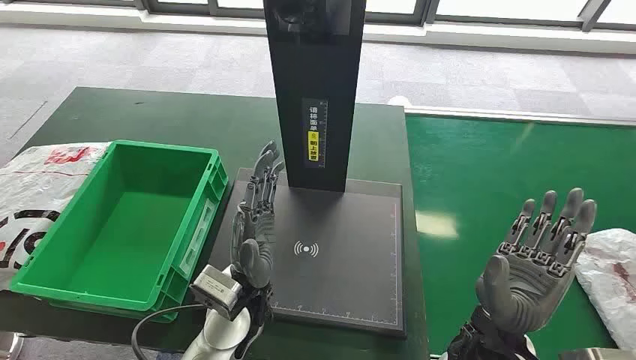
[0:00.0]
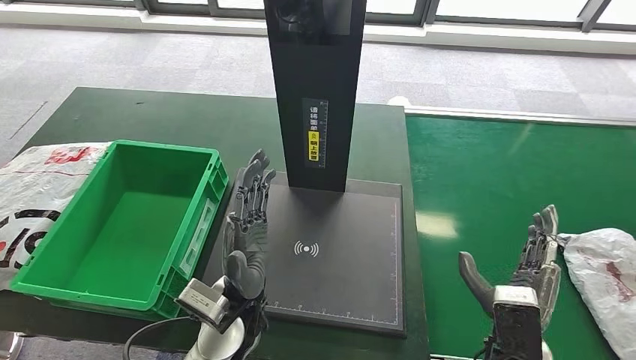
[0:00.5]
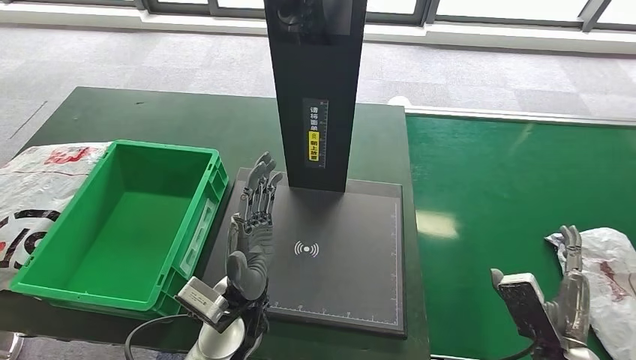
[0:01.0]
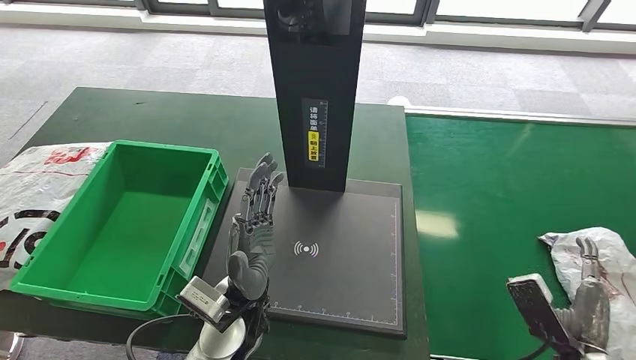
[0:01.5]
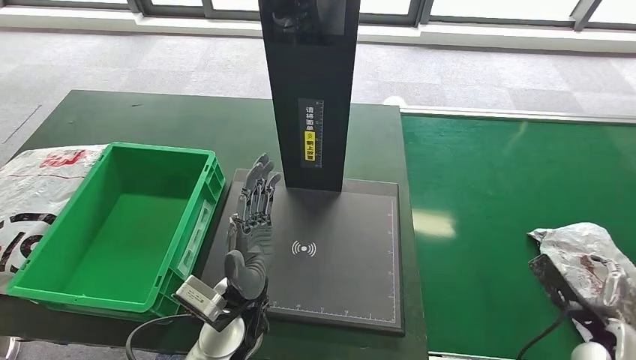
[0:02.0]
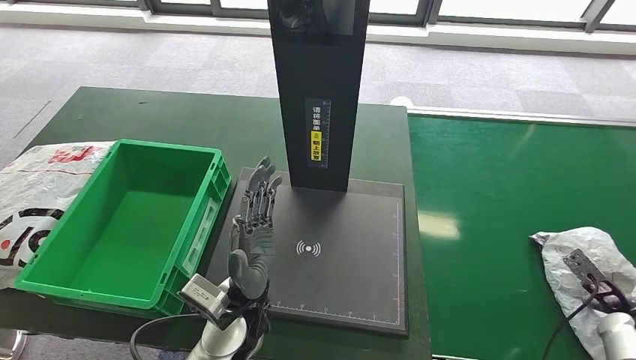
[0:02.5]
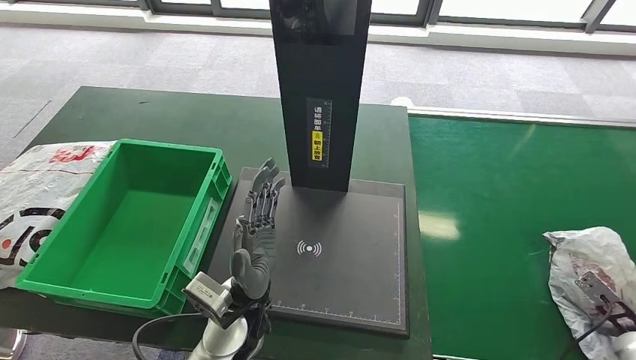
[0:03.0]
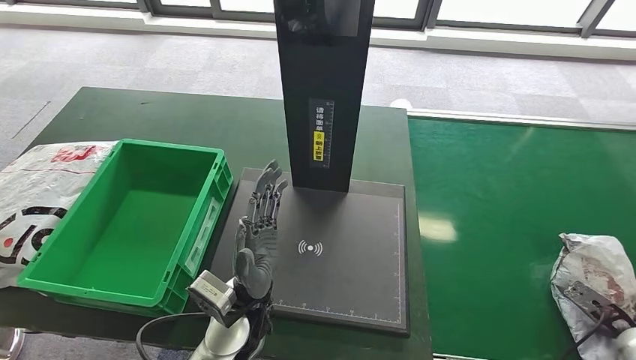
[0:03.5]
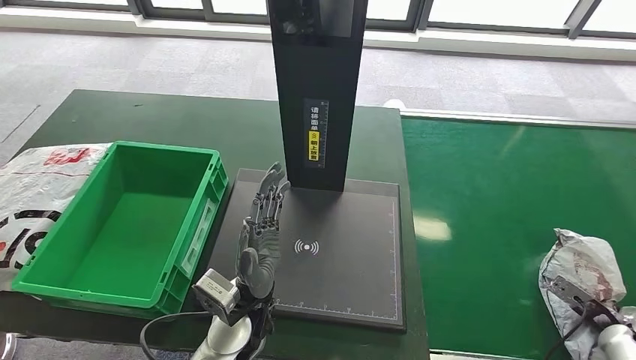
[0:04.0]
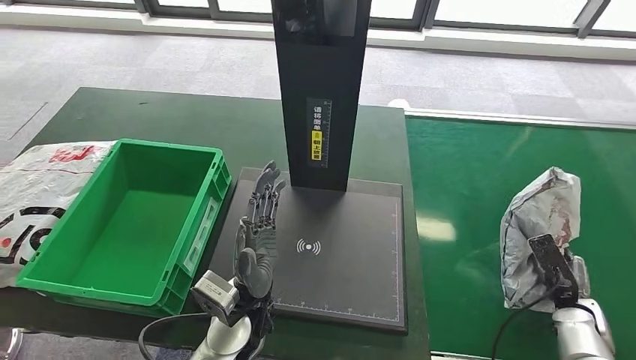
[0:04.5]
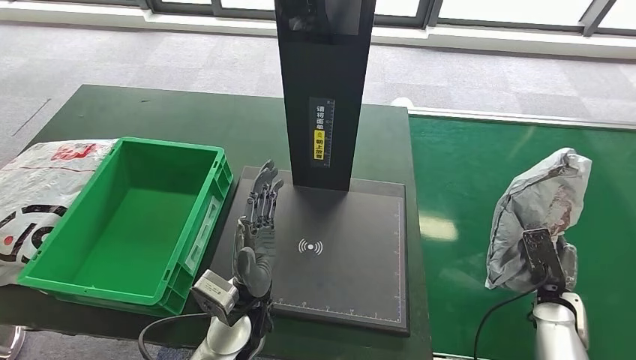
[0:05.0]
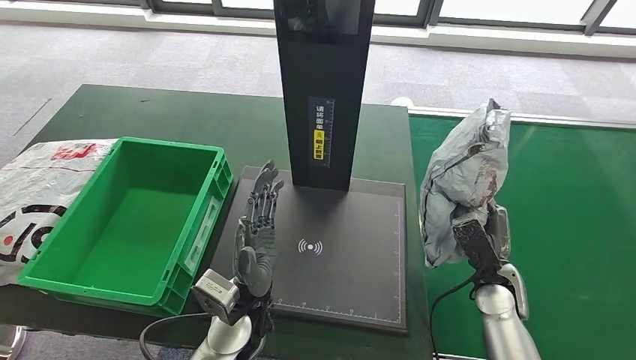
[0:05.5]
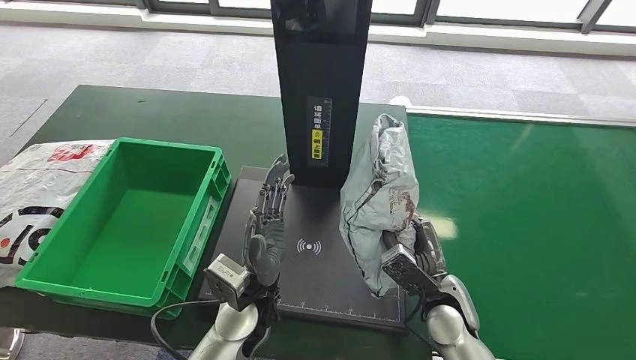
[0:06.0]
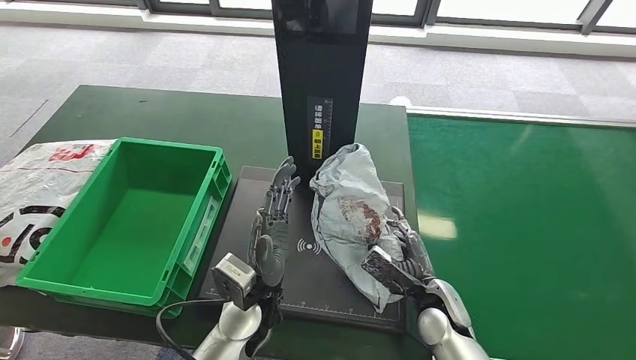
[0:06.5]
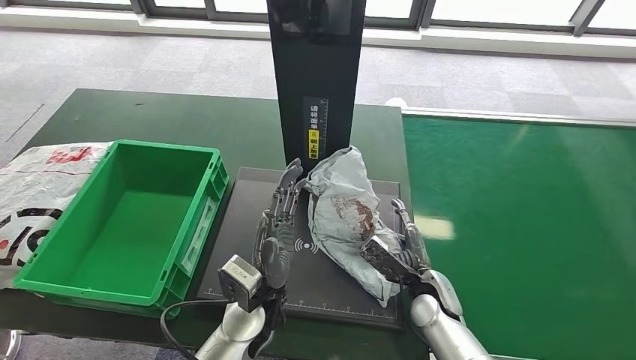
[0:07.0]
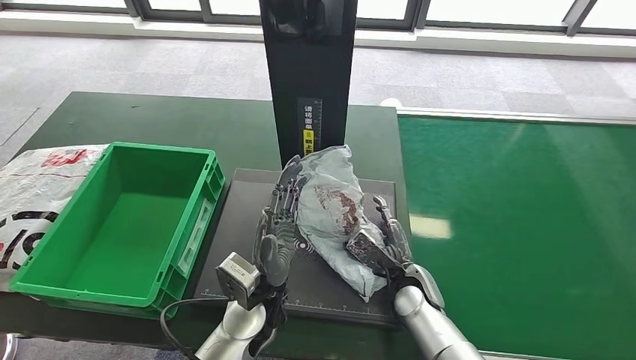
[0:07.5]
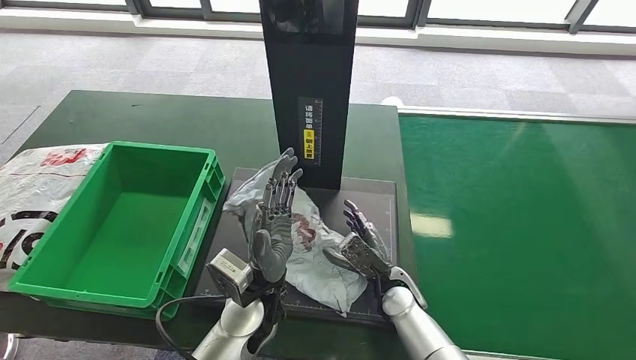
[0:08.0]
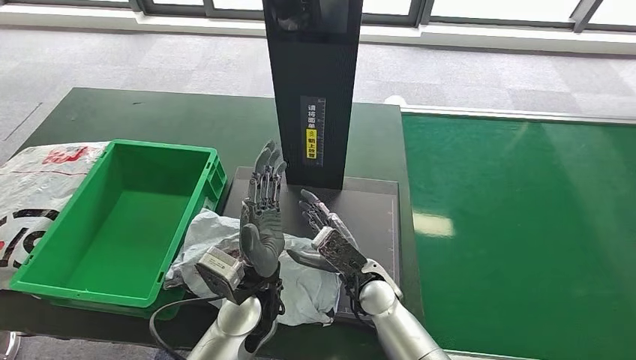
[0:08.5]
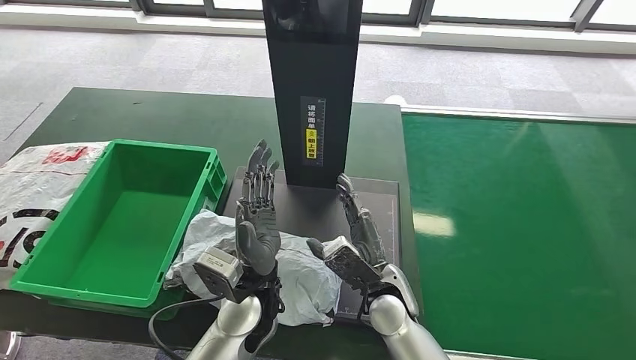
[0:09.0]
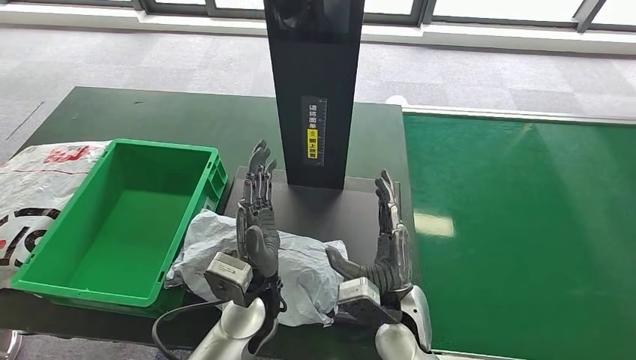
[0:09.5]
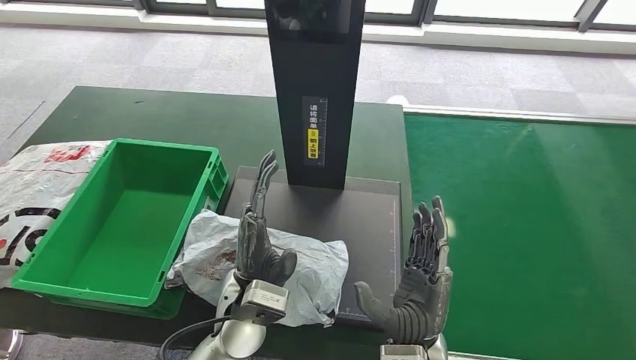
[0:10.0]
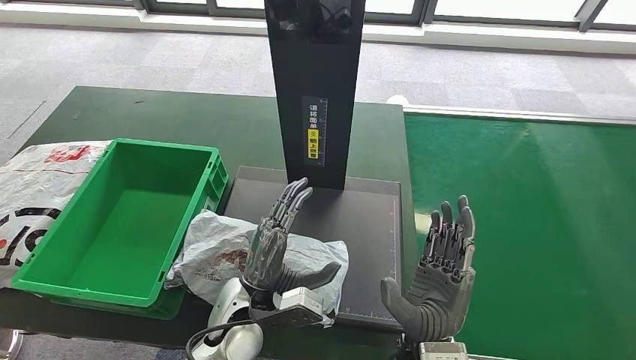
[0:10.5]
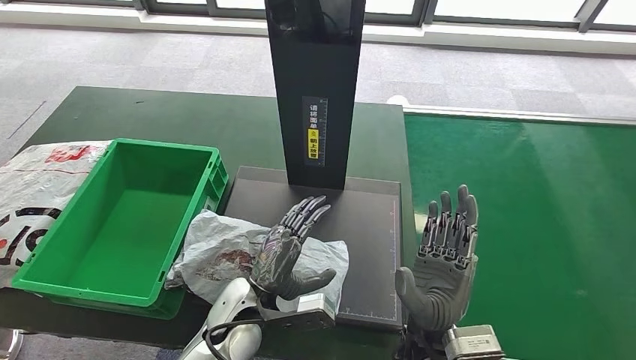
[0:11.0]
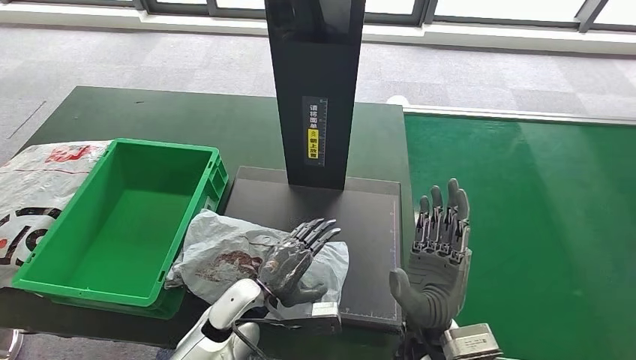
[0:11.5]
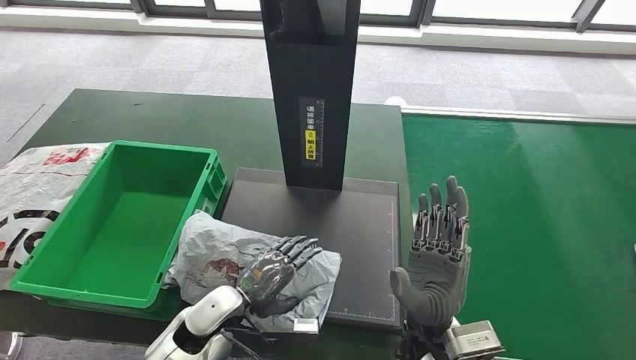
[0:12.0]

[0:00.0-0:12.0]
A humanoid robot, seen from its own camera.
Step, 0:00.0 to 0:04.5: Take the parcel off the conveyor belt.
Step, 0:05.0 to 0:07.0: Place the parcel onto the inbound machine.
0:10.0 to 0:12.0: The left hand moves to the left and downward, some 15 cm.

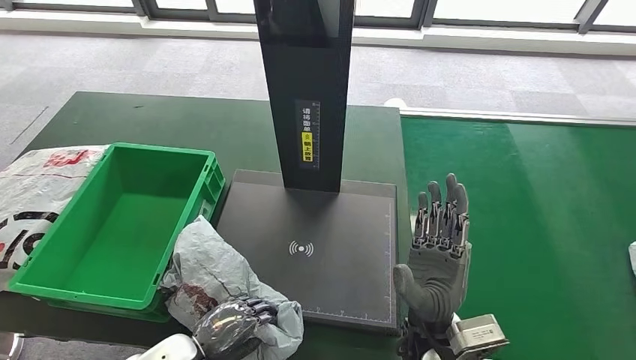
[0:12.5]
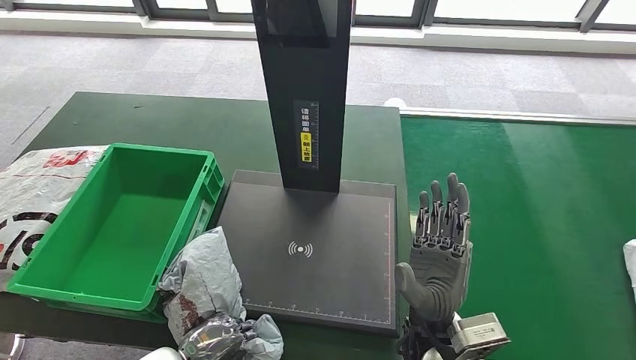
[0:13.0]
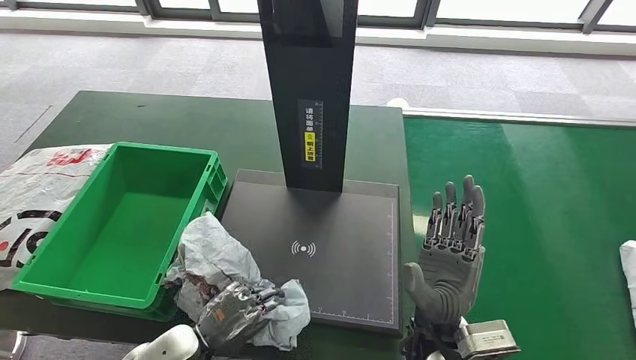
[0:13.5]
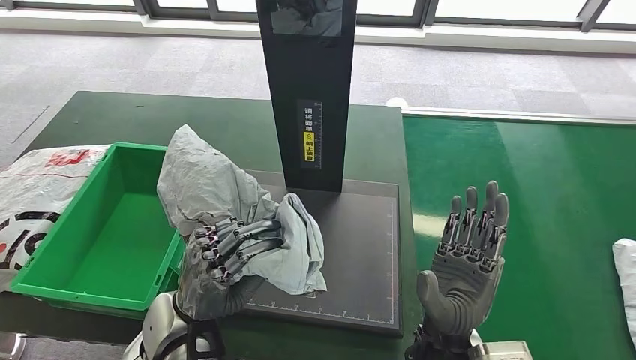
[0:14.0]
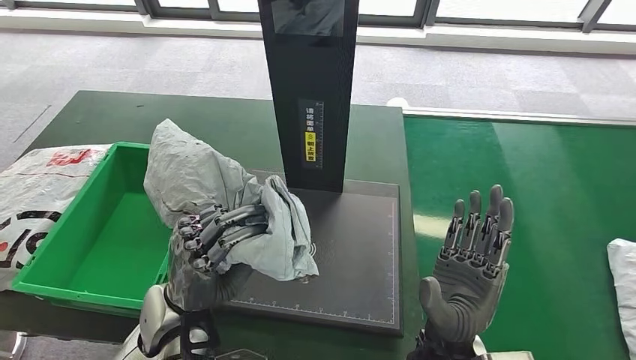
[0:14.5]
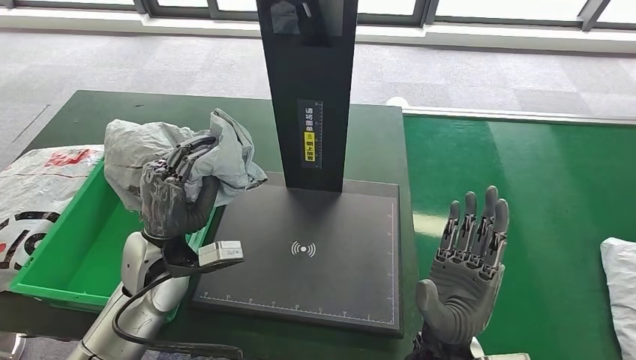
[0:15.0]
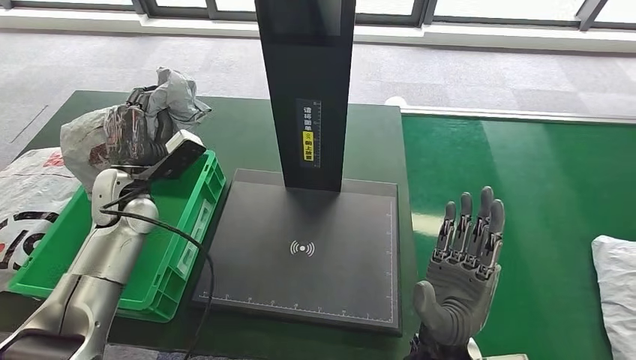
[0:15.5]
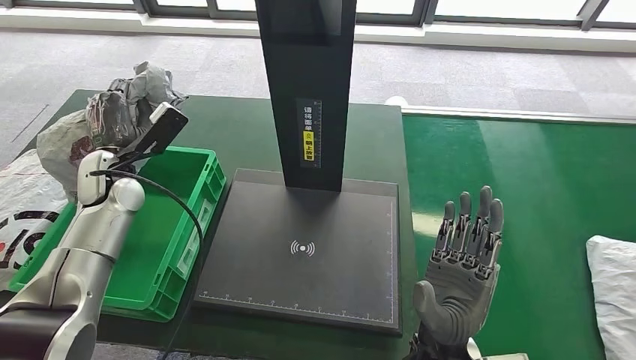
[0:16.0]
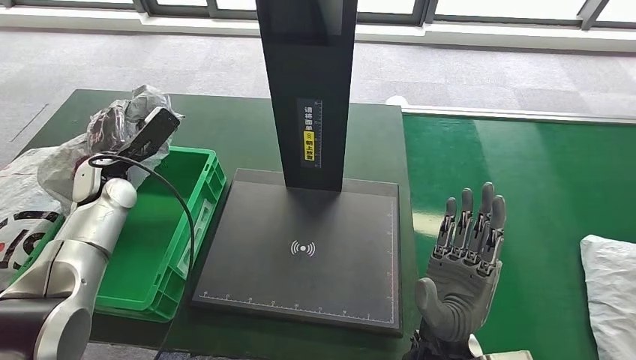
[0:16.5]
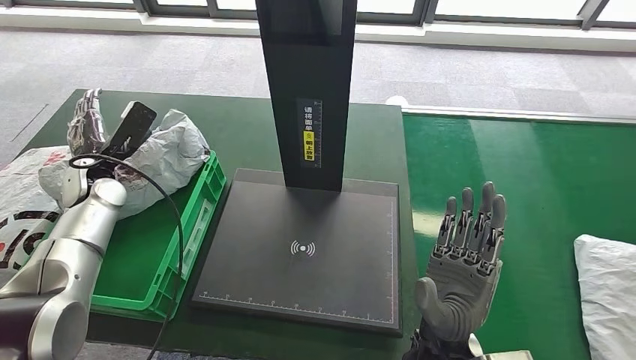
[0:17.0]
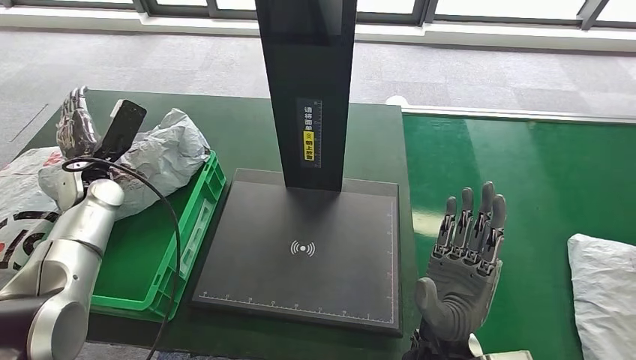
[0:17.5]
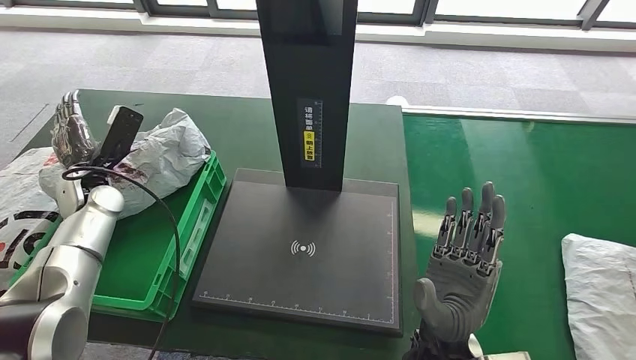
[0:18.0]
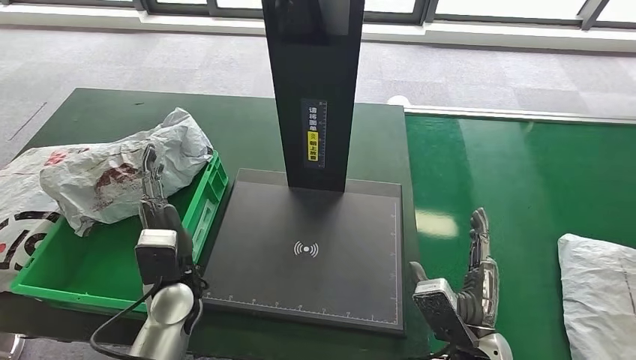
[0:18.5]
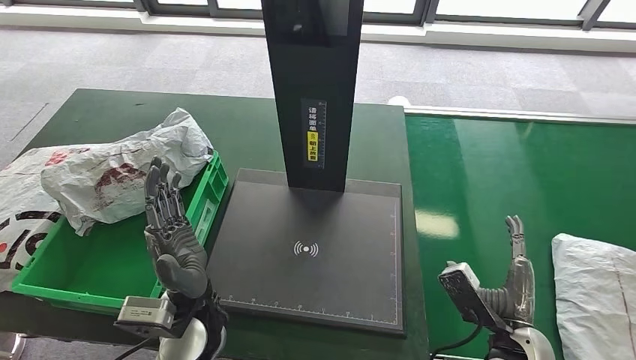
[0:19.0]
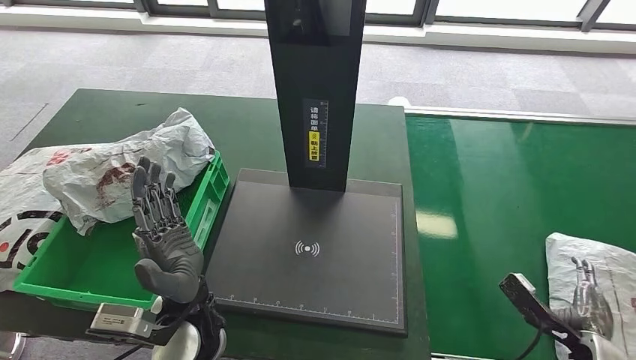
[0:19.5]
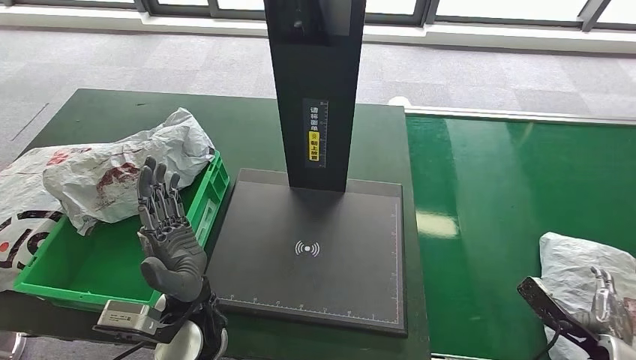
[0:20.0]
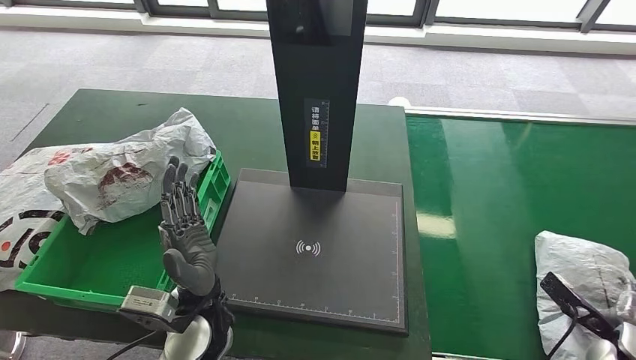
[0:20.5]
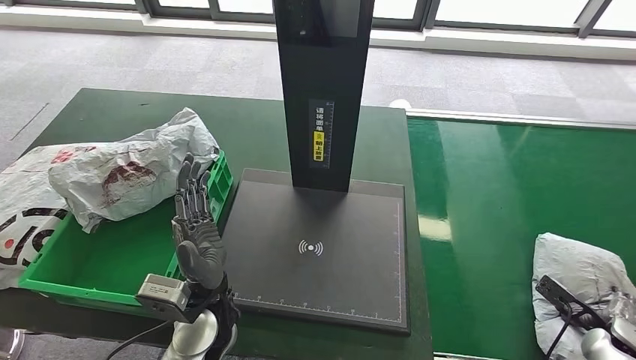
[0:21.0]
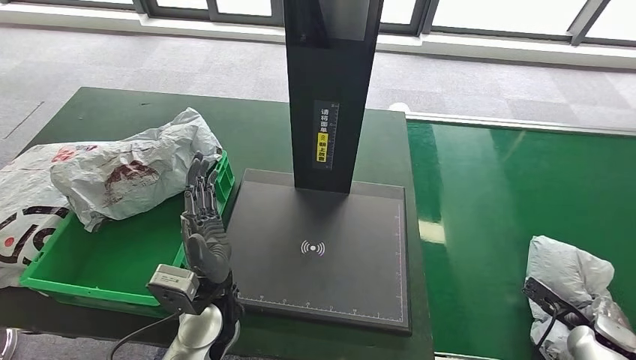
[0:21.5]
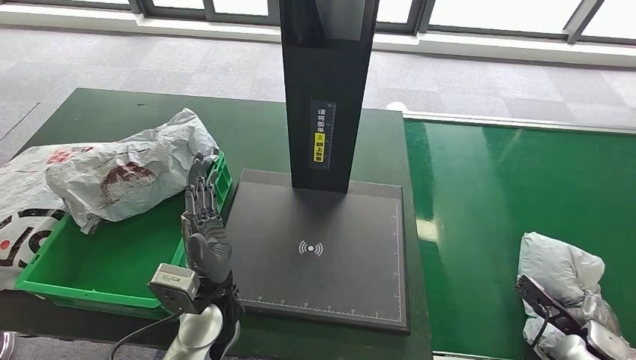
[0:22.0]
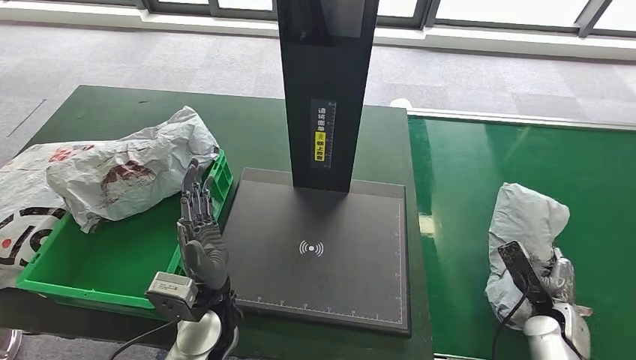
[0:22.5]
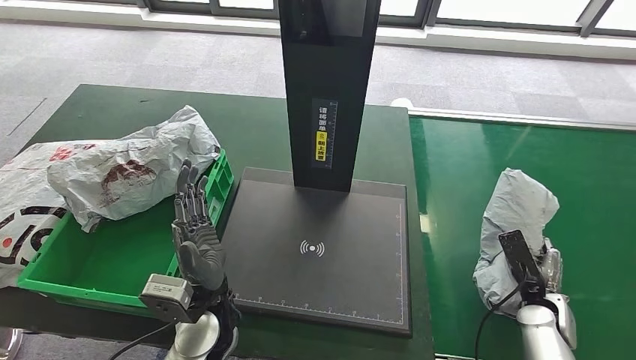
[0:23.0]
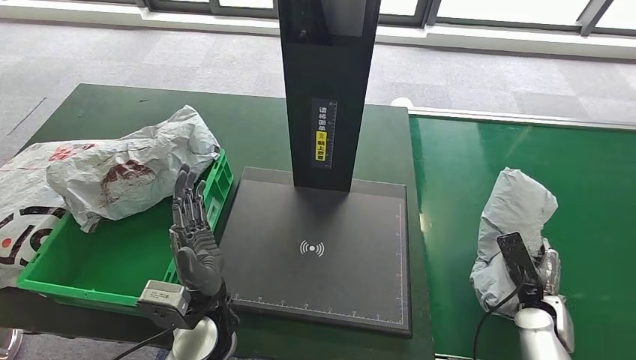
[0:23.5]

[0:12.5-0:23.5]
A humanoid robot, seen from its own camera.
Step, 0:12.5 to 0:15.0: Pick up the parcel from the inbound machine.
Step, 0:15.5 to 0:19.5: Put the parcel inside the courier box.
Step, 0:21.0 to 0:23.5: Pick up the parcel from the conveyor belt.
0:16.0 to 0:18.0: The left hand ends up some 5 cm from where it was.
